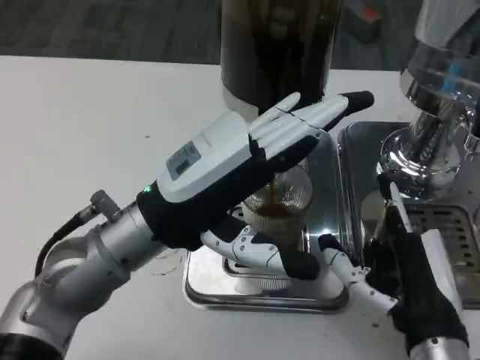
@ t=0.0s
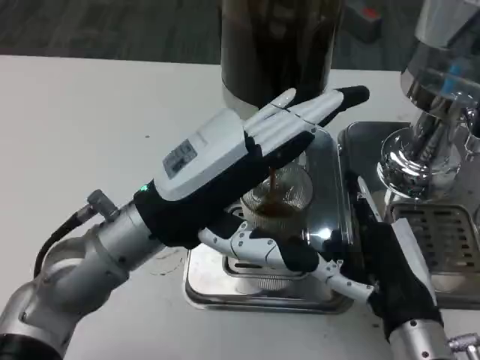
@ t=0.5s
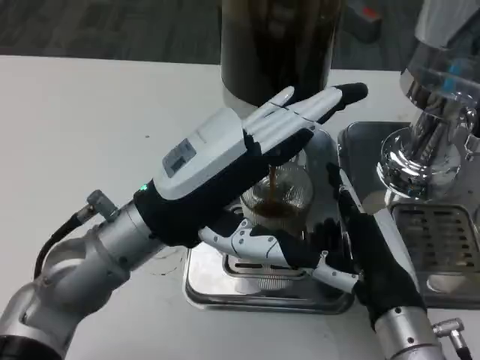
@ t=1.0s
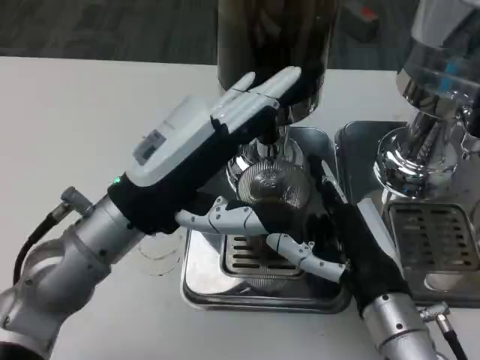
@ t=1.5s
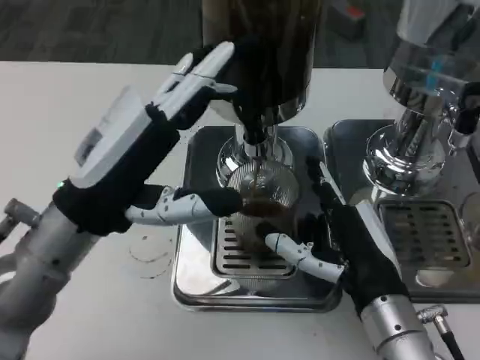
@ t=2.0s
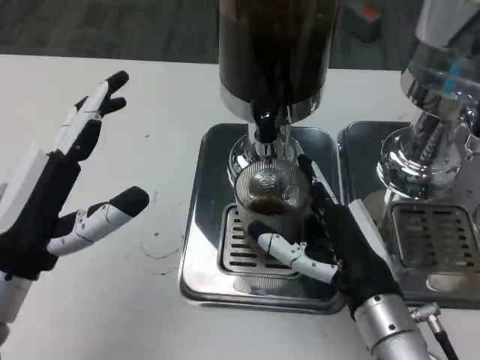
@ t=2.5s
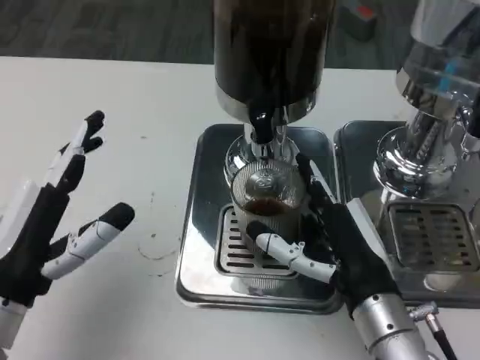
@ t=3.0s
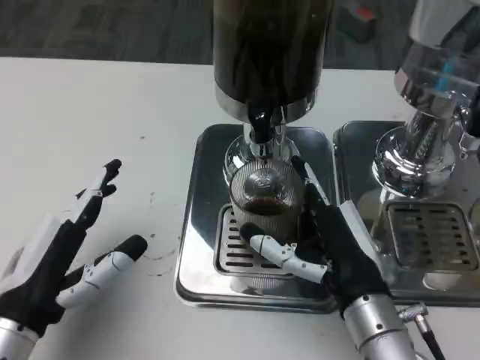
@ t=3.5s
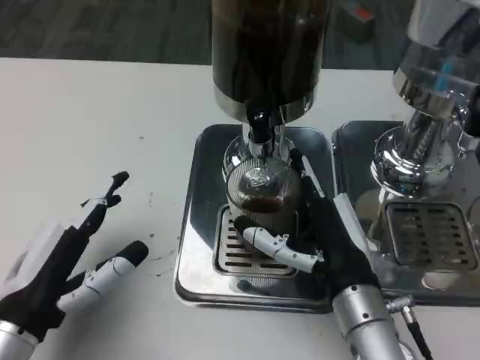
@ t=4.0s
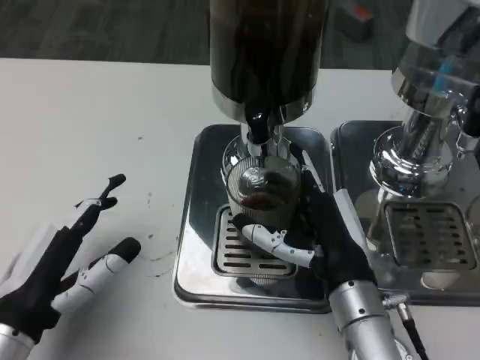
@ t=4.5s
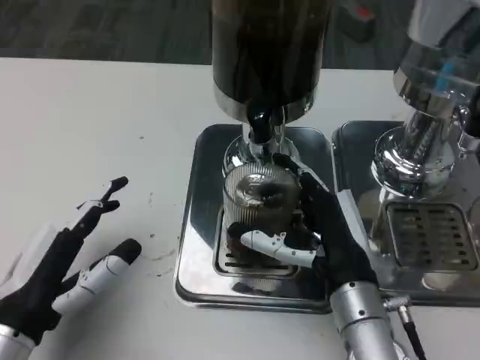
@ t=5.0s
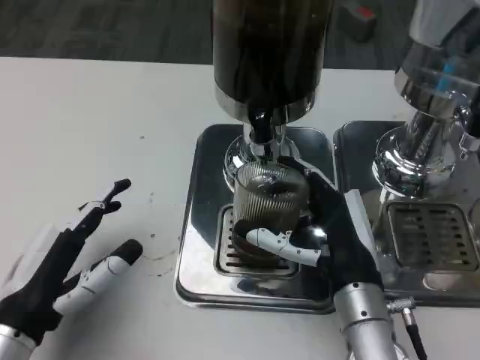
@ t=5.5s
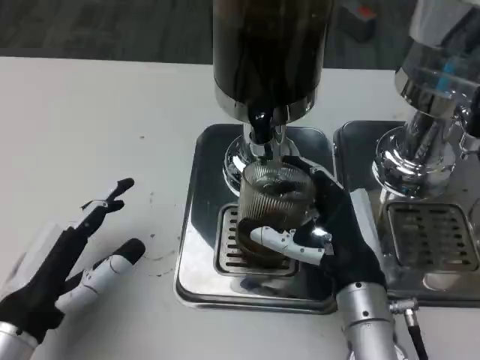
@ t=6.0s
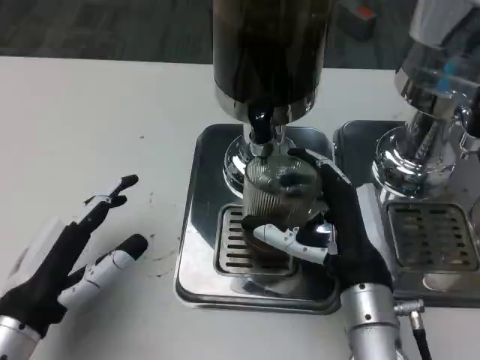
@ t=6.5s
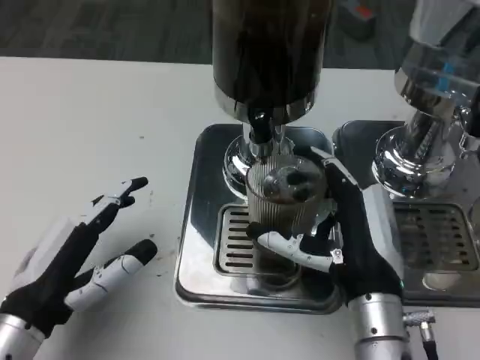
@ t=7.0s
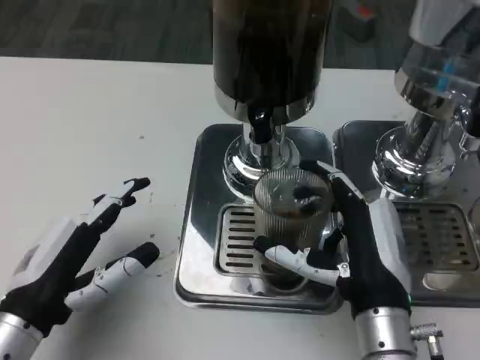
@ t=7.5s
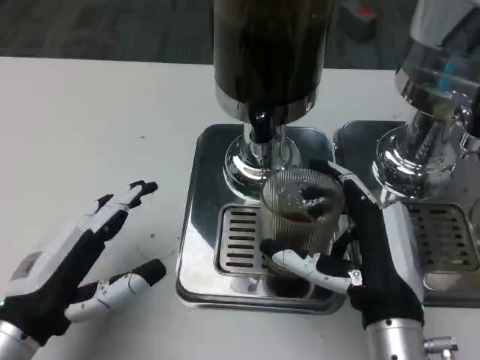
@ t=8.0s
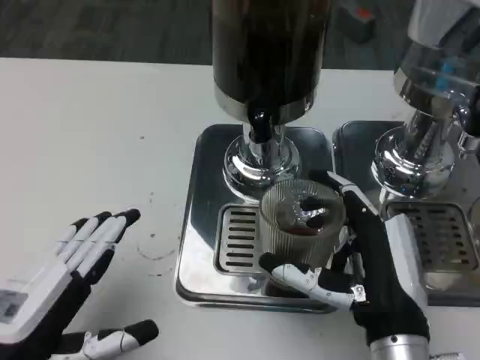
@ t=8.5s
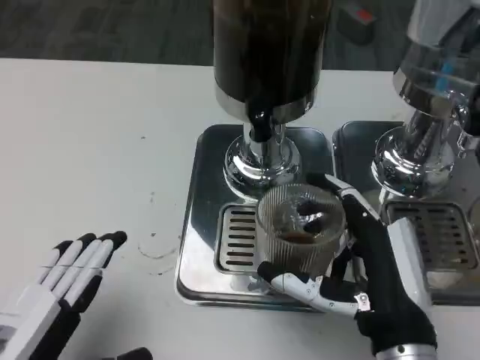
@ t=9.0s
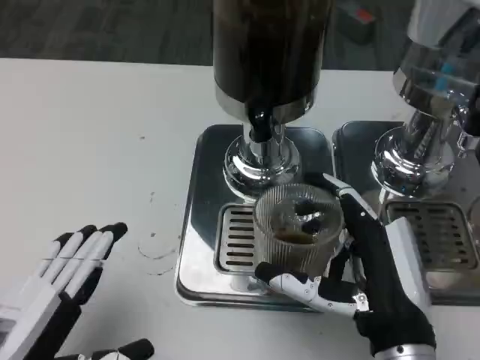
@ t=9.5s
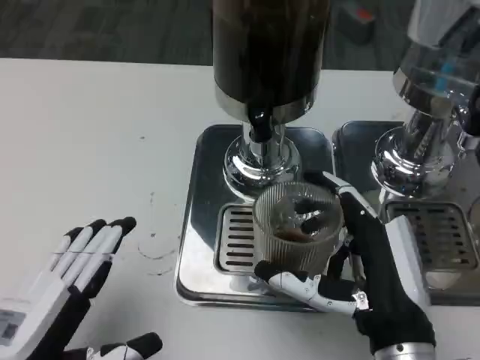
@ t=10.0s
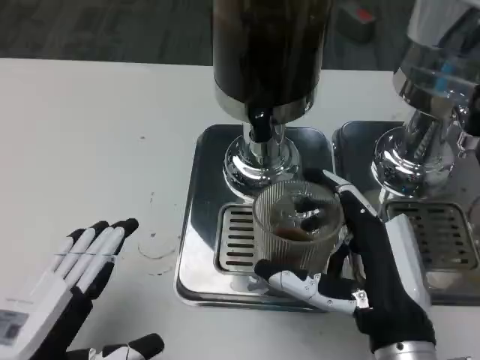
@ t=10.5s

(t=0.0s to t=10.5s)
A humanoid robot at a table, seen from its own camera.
Task of the whole recording: Grasp the cup under the faucet to collect the drink, then remove the cup.
t=0.0s - t=2.0s: The left hand shifts by roughly 5 cm.
t=2.0s - t=4.0s: The left hand travels downward, backward and to the left by roughly 15 cm.
t=4.0s - t=6.5s: The hands make only small movements.
t=6.5s - t=8.5s: The two hands go about 5 cm backward.
t=8.5s - t=10.5s: The hands move only a little.

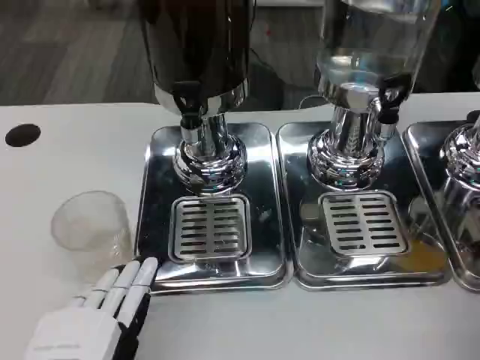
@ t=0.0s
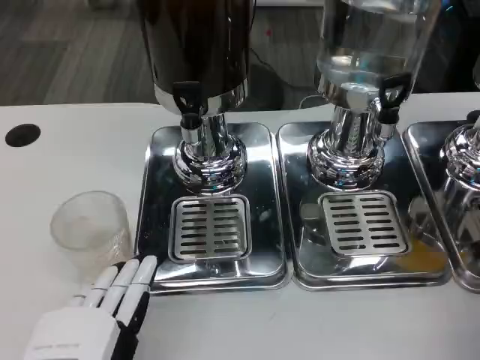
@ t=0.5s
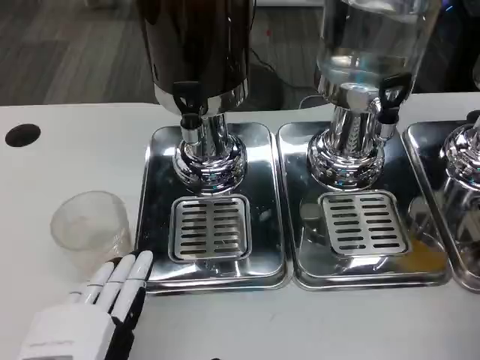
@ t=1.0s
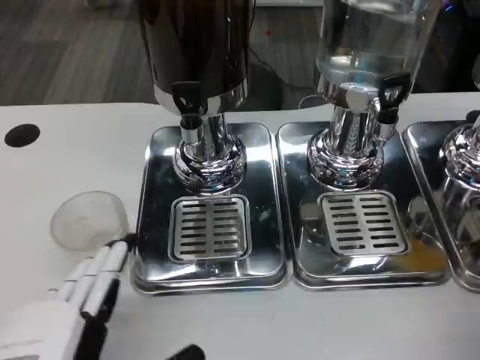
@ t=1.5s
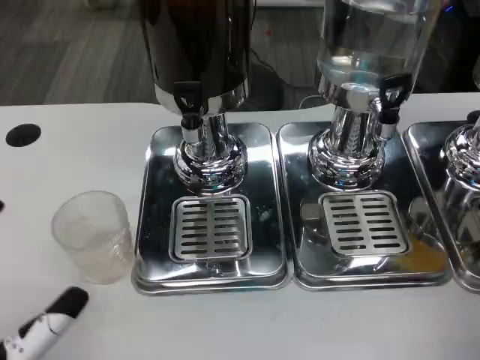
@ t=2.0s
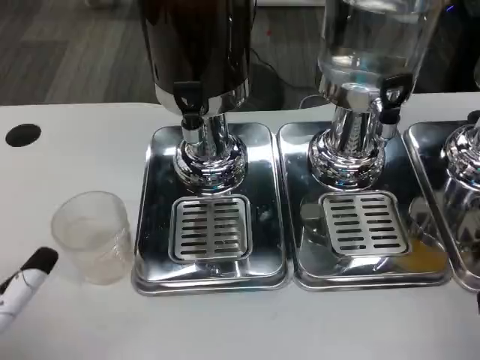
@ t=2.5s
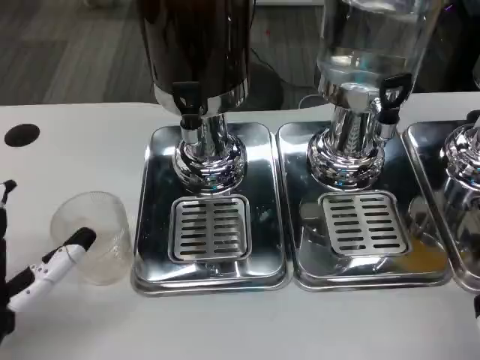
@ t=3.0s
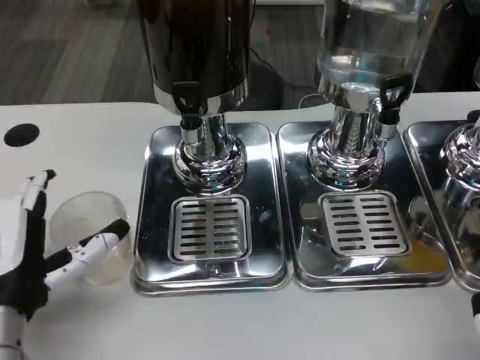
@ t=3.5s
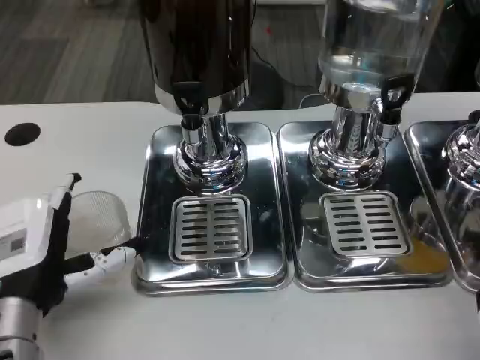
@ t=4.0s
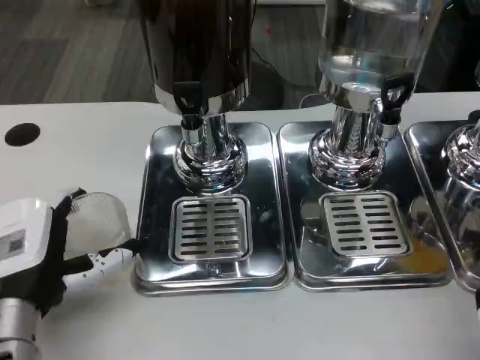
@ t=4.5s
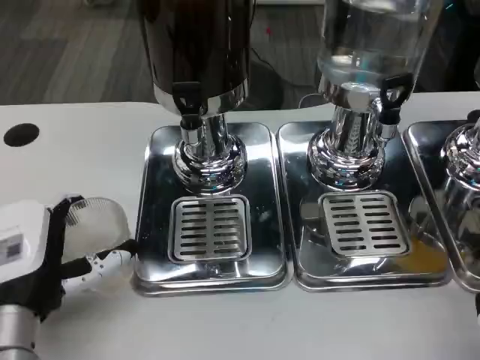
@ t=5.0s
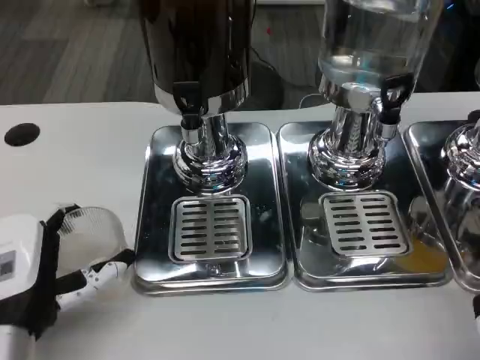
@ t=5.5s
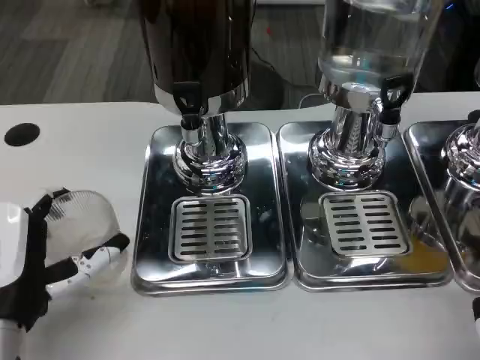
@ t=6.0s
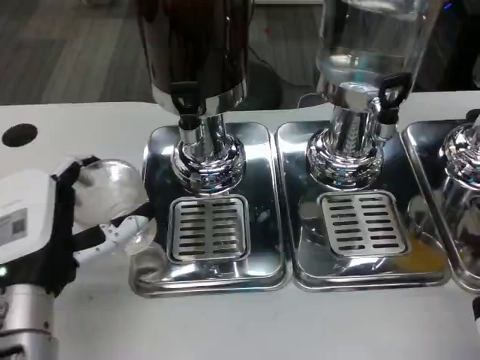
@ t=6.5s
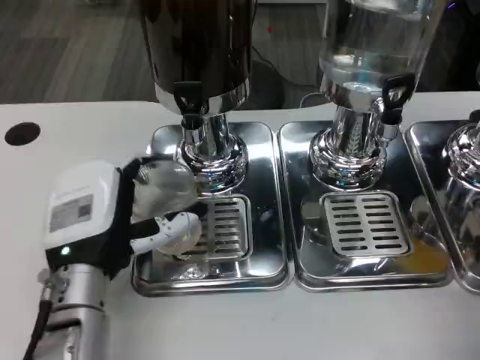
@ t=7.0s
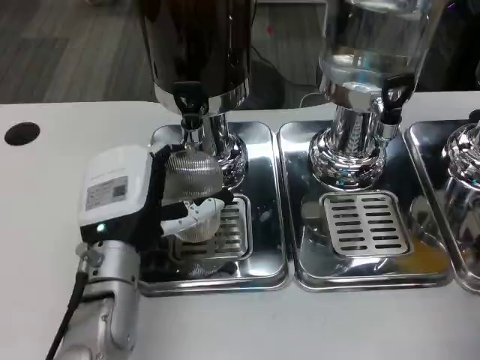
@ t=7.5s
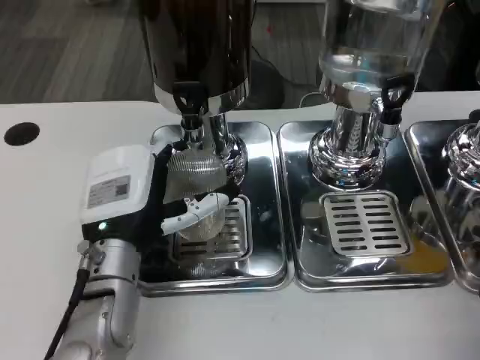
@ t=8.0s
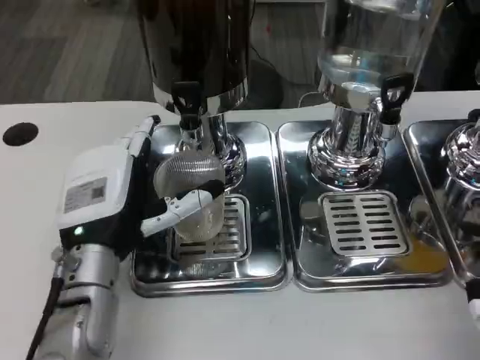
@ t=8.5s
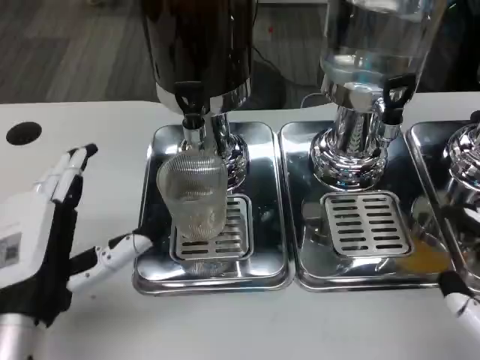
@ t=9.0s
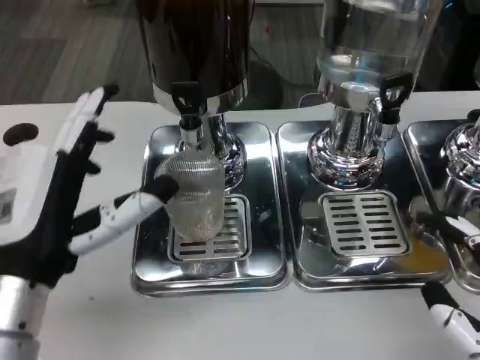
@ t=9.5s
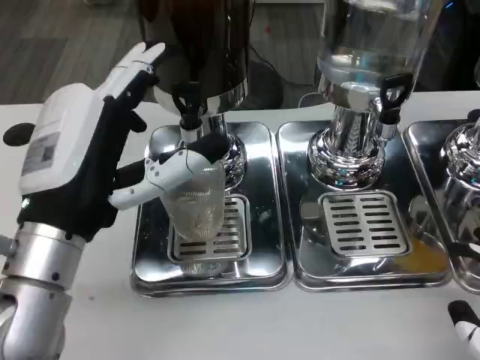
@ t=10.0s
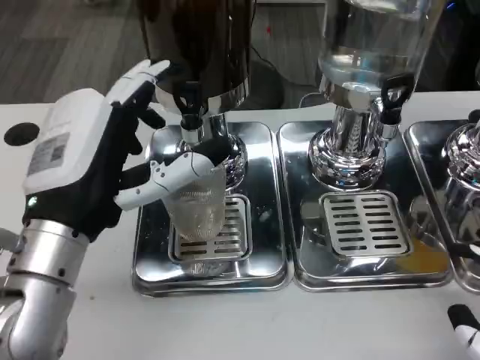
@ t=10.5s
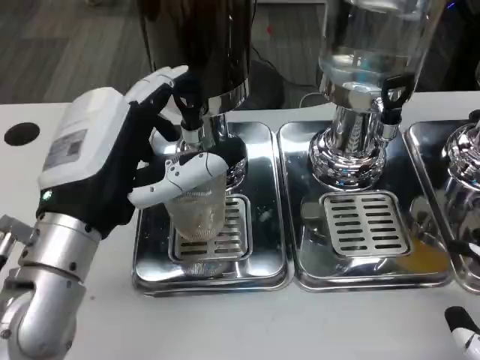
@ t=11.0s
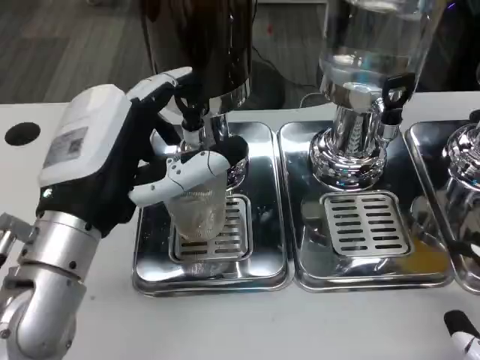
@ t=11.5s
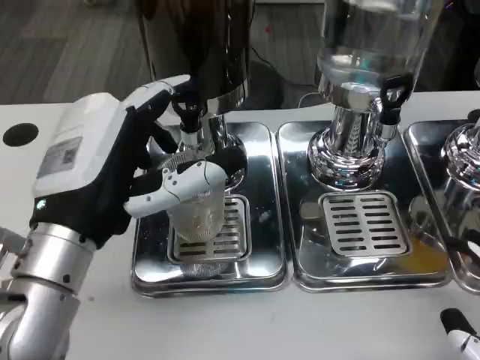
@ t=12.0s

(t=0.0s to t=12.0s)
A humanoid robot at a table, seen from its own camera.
Task of the whole recording: Grasp the cup under the faucet to collect the drink, then remove the cup.
t=0.0s - t=2.0s: The left hand is displaced to the left by roughly 5 cm.
t=2.0s - t=4.0s: The left hand shifts roughly 10 cm forward.
t=4.0s - t=6.0s: There are only small adjustments of the hands.
t=6.0s - t=8.0s: The left hand heads forward and to the right, covering approximately 10 cm.
t=8.0s - t=10.0s: The left hand is displaced upward by about 10 cm.
t=10.0s - t=12.0s: The hands stay close to where they were, moving slightly.

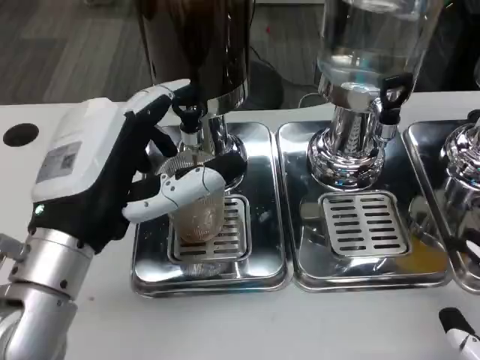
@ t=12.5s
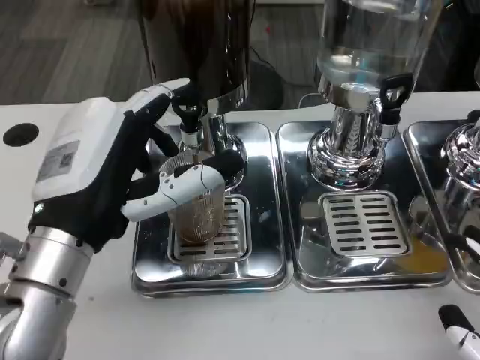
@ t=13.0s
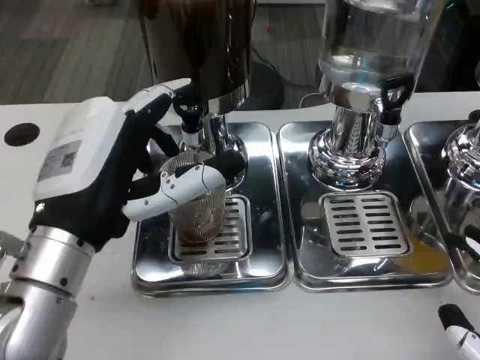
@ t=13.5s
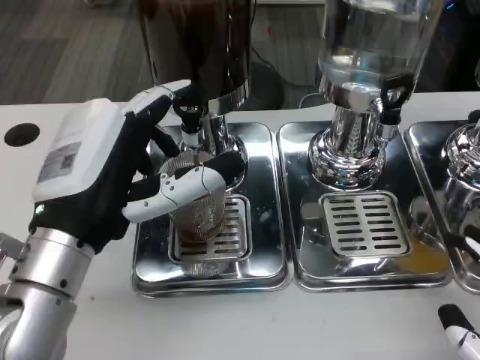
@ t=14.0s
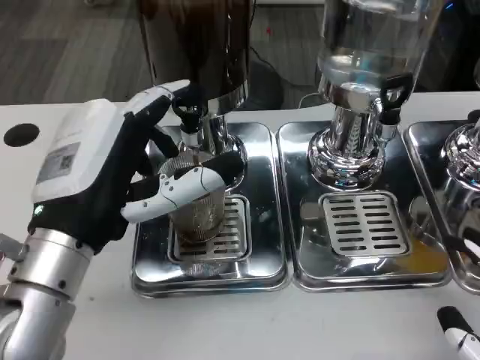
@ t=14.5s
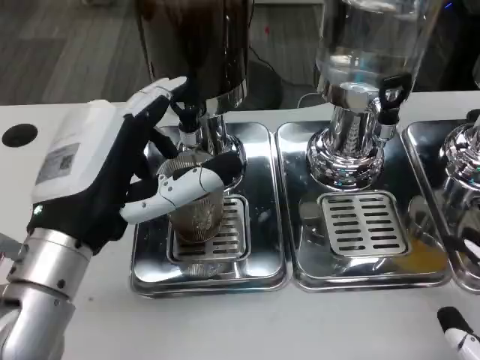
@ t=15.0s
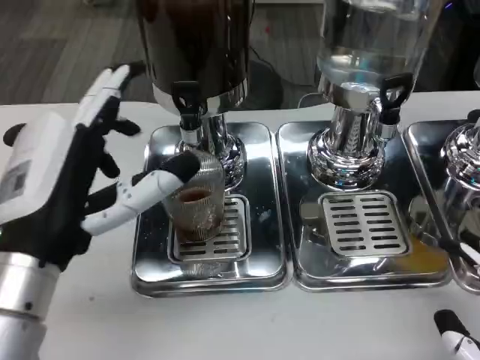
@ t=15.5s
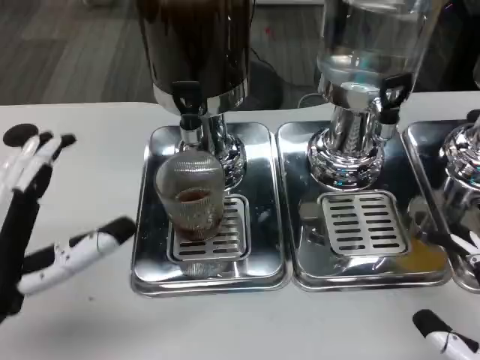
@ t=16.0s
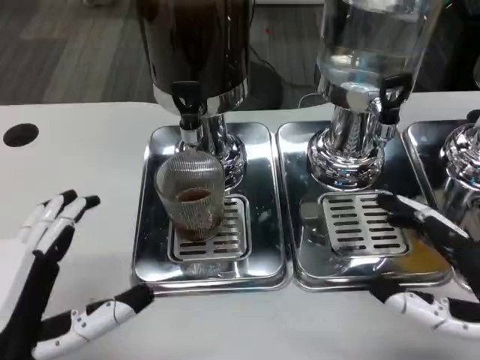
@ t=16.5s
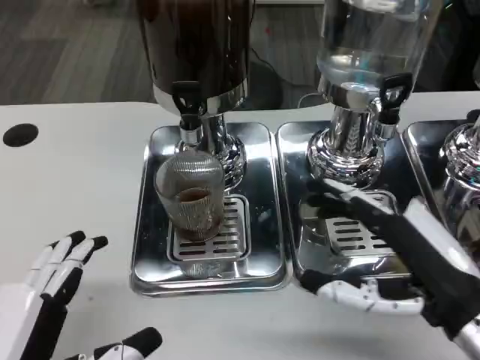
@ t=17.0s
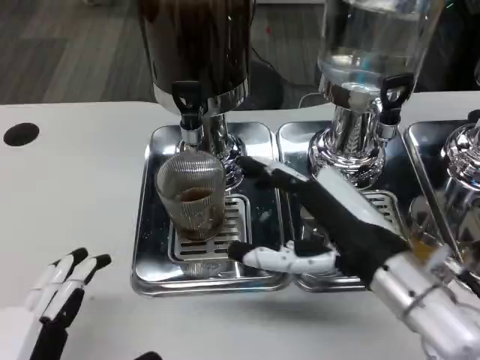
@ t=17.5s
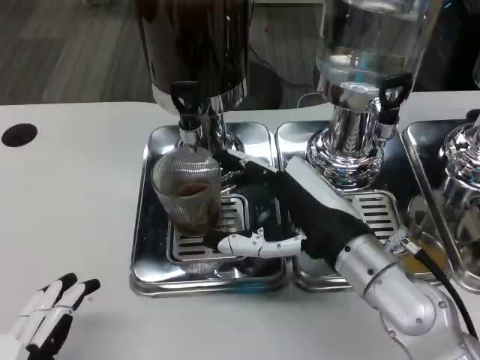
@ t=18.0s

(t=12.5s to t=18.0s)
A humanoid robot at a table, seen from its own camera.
Task of the whole recording: Grasp the cup under the faucet to collect the drink, then remove the cup.
t=12.5s - t=14.5s: Both hands stay about where they are.
t=14.5s - t=16.0s: The left hand is displaced to the left and backward by approximately 10 cm.
t=16.0s - t=18.0s: The right hand shifts about 20 cm forward and to the left. Meanwhile the left hand travels backward by some 10 cm.
